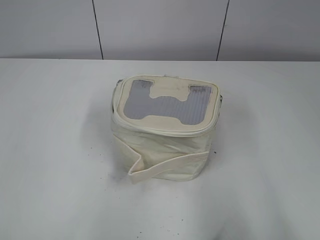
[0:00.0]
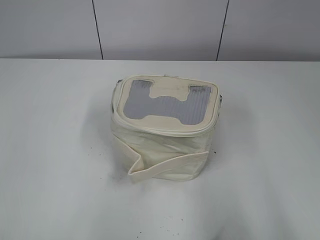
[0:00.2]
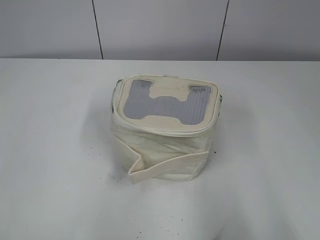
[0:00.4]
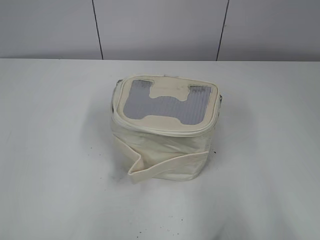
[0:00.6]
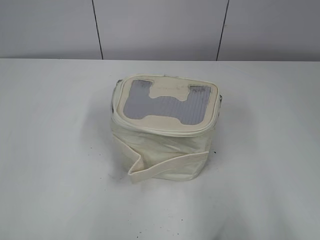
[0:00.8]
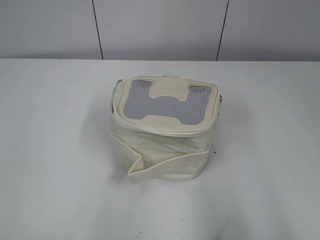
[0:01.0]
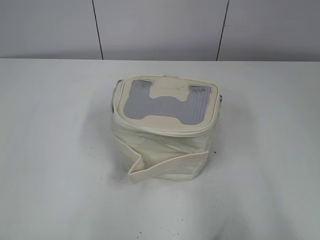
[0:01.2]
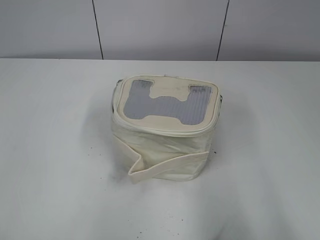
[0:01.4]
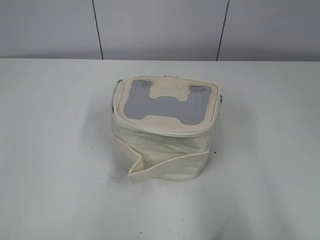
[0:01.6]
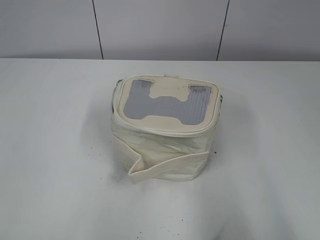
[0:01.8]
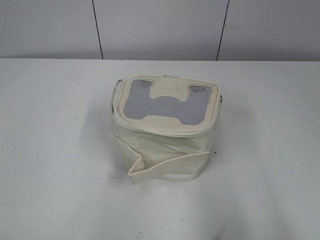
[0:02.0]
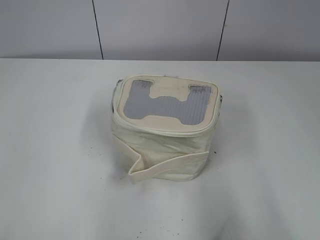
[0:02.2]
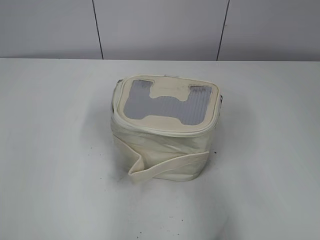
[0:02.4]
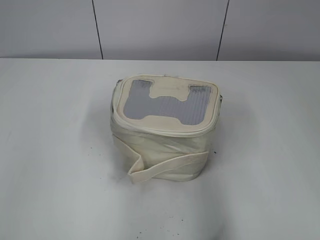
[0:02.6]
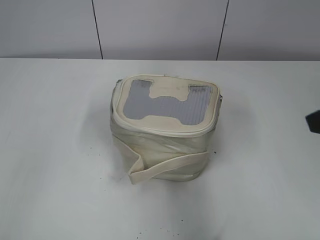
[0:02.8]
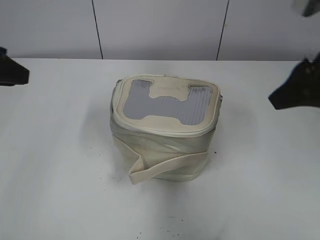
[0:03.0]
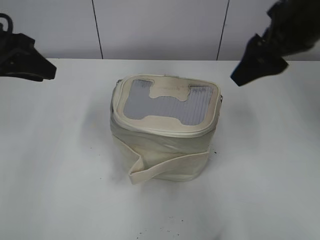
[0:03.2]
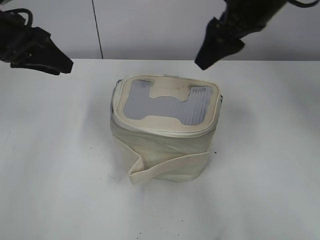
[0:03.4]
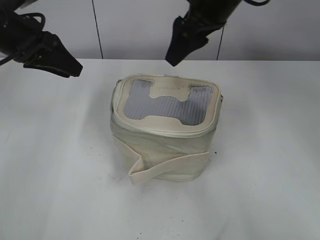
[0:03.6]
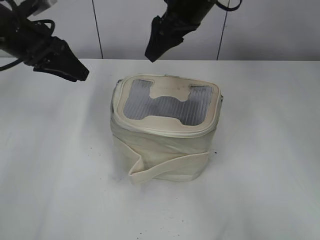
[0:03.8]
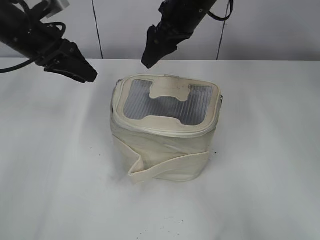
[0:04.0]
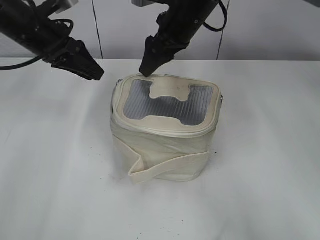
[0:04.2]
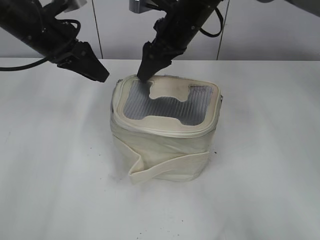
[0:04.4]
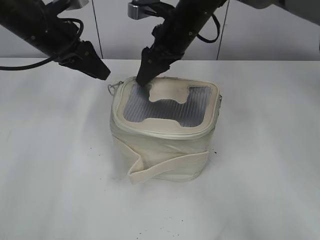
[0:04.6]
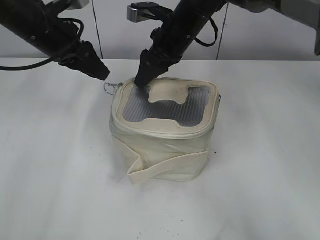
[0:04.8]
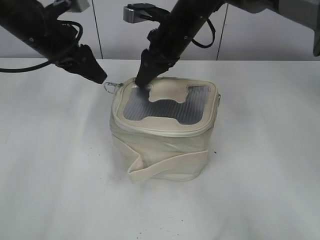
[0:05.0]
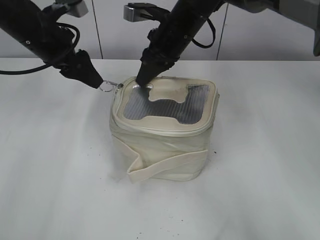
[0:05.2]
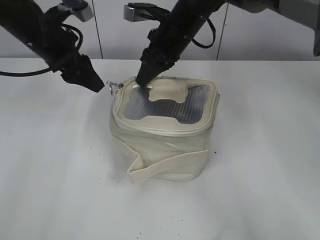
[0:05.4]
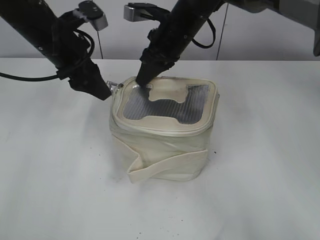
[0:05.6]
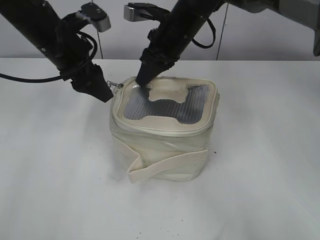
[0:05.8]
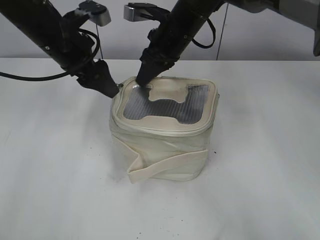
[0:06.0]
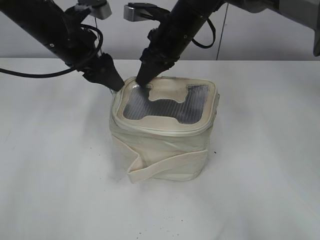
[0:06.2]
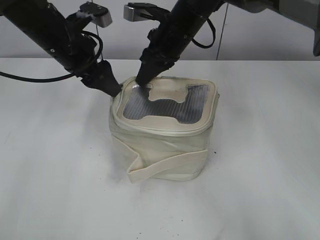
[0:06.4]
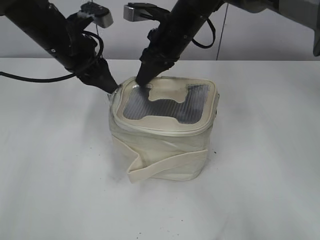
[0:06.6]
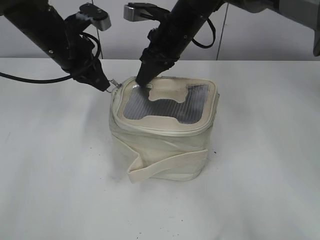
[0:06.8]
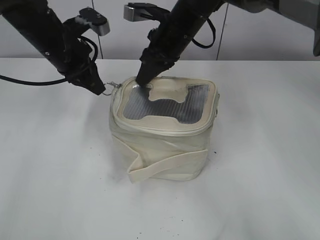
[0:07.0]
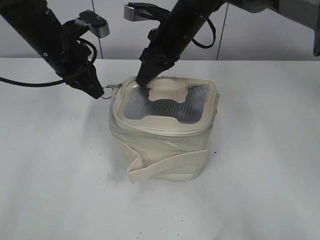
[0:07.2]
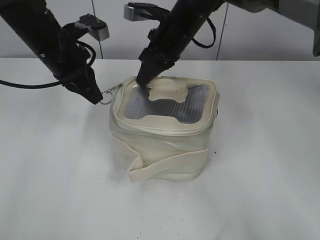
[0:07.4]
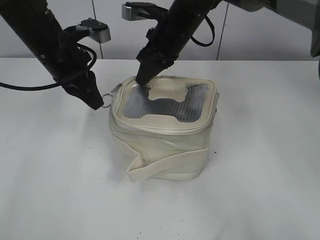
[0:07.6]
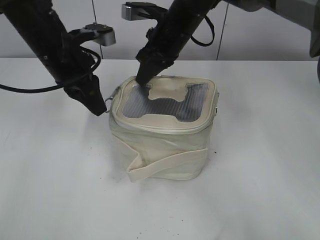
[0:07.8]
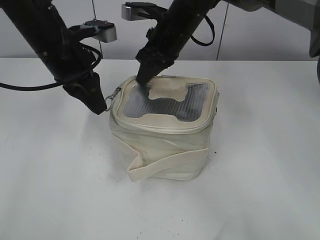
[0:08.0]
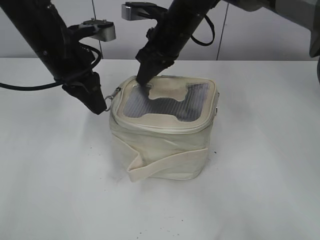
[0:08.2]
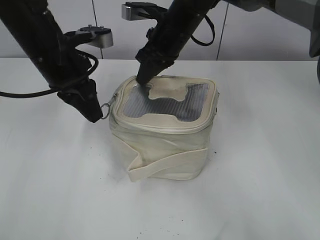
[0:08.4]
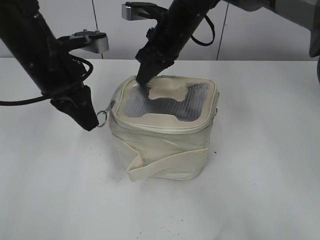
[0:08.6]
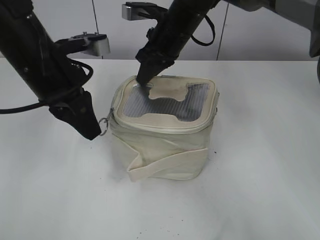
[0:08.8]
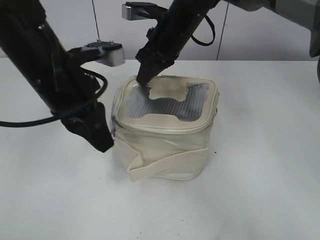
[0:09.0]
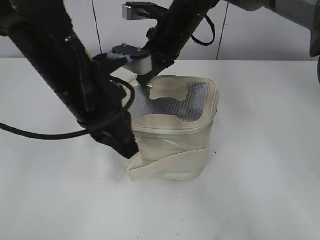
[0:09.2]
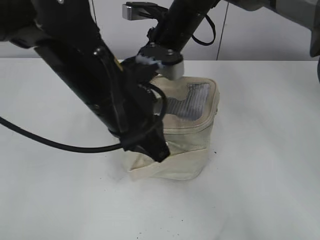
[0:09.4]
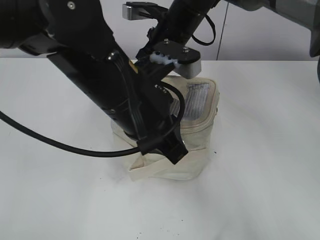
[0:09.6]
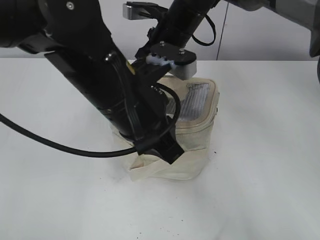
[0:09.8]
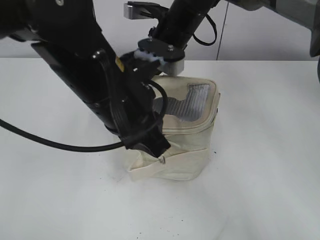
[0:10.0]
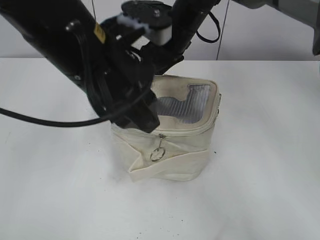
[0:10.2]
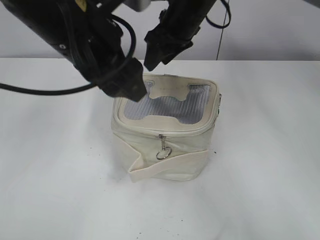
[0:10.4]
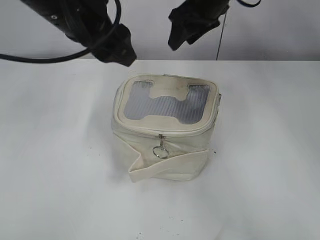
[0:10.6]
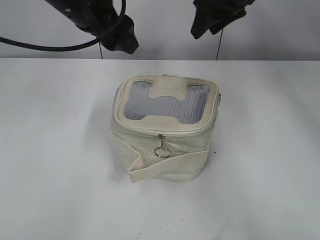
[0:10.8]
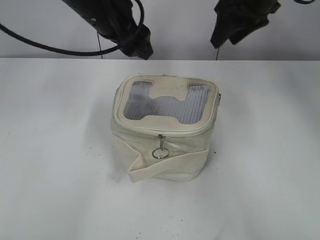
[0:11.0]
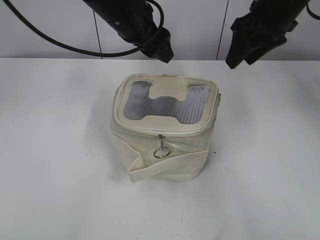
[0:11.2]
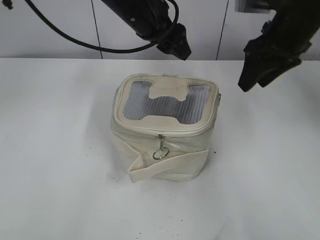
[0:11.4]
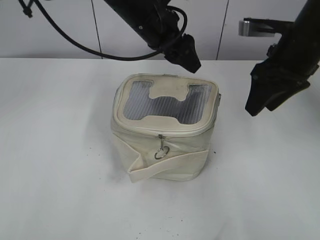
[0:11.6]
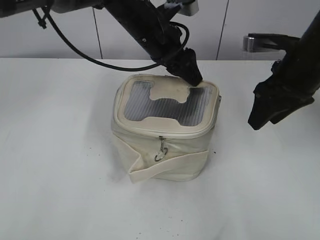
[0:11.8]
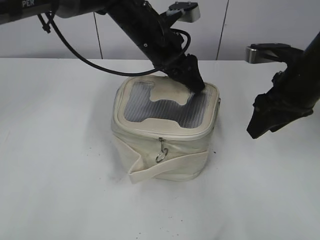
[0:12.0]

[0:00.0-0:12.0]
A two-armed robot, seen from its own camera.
Step, 0:00.0 to 0:10.0: Zip up the bag with your left hand.
0:01.6 to 0:03.0: Both grippers travel together forward, some 25 cm.
0:03.0 to 0:04.4: The left gripper heads forward and to the right, covering some 15 cm. The right gripper travels forward and to the left by roughly 25 cm.
0:04.4 to 0:06.0: The left gripper opens up, while the right gripper closes its fingers.
0:06.0 to 0:07.6: The left gripper closes up.
0:07.6 to 0:09.0: The left gripper moves backward, some 10 cm.
0:09.0 to 0:10.4: The right gripper opens its fingers. Meanwhile the left gripper is displaced upward by roughly 5 cm, and opens its fingers.
0:10.4 to 0:12.0: The right gripper moves to the right and backward, some 20 cm, while the left gripper moves forward, downward and to the right, some 20 cm.

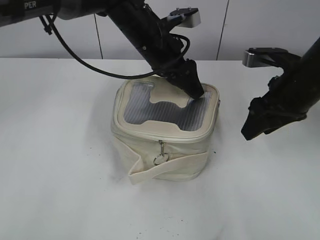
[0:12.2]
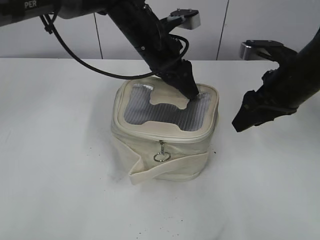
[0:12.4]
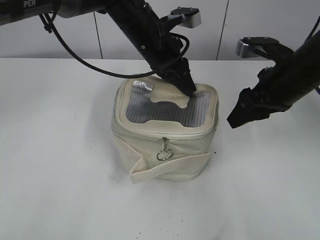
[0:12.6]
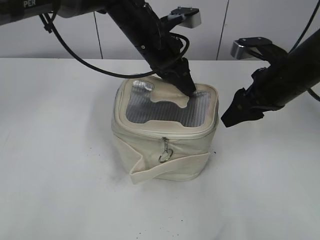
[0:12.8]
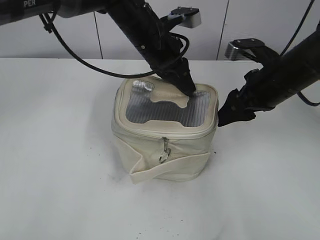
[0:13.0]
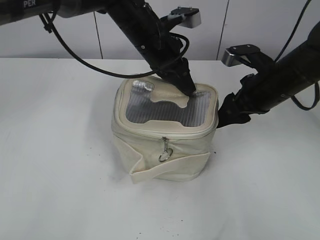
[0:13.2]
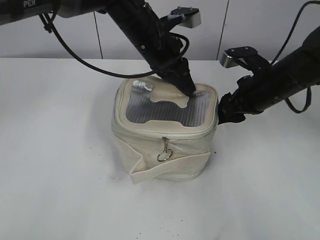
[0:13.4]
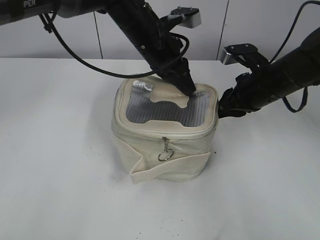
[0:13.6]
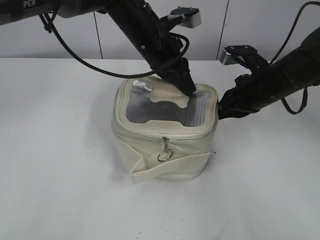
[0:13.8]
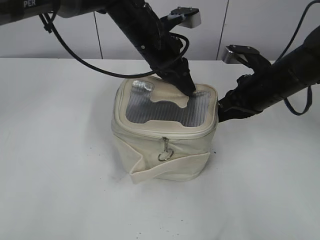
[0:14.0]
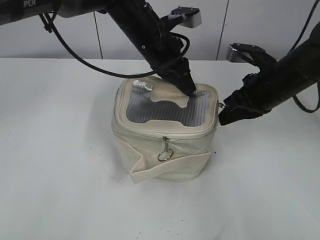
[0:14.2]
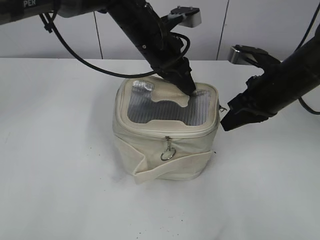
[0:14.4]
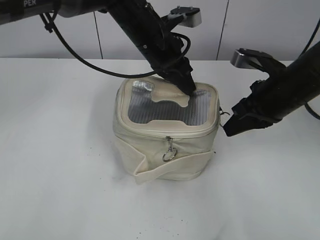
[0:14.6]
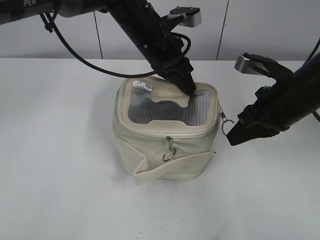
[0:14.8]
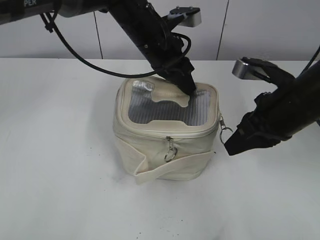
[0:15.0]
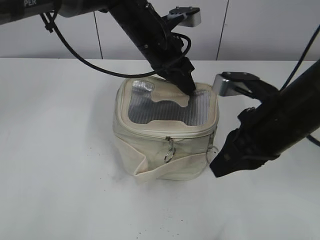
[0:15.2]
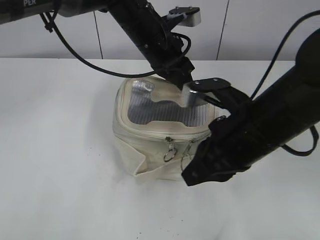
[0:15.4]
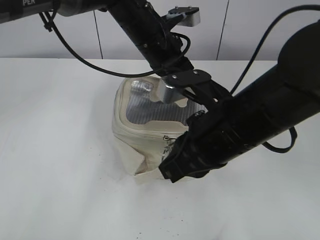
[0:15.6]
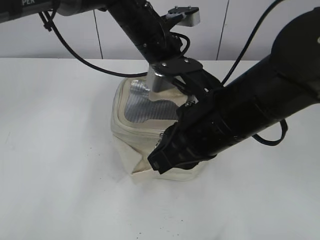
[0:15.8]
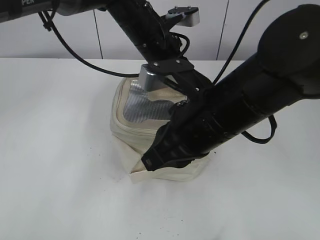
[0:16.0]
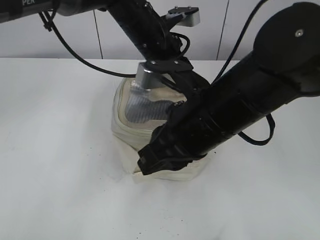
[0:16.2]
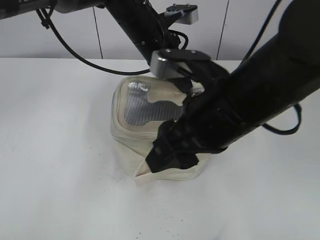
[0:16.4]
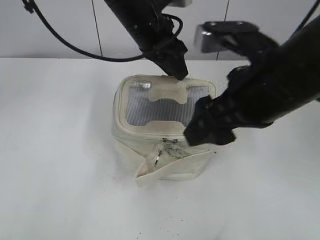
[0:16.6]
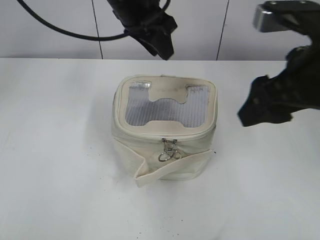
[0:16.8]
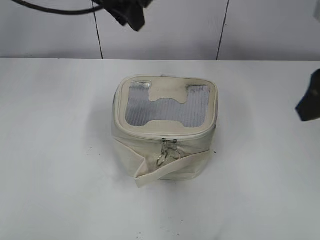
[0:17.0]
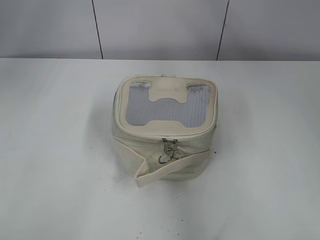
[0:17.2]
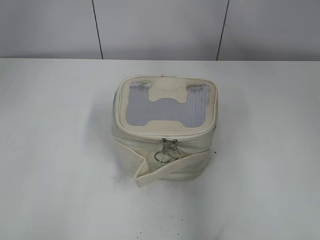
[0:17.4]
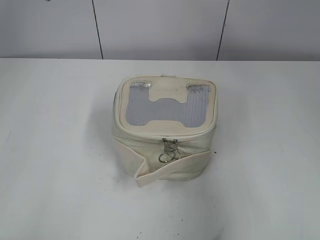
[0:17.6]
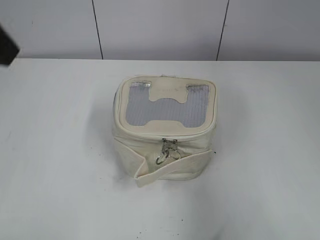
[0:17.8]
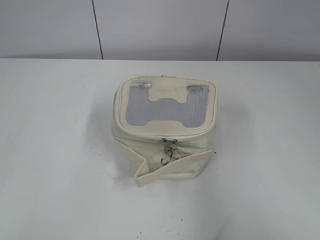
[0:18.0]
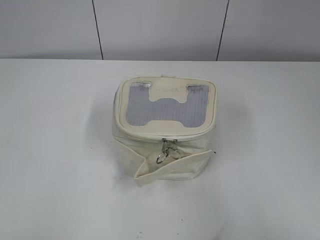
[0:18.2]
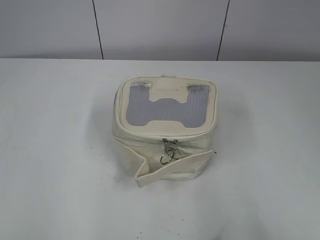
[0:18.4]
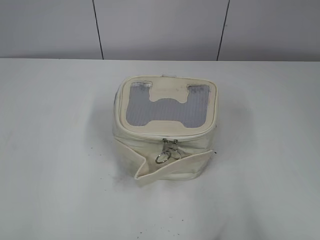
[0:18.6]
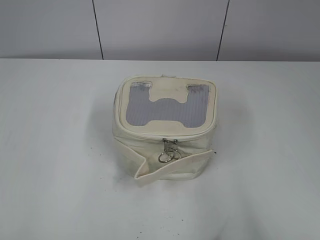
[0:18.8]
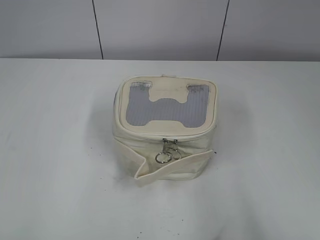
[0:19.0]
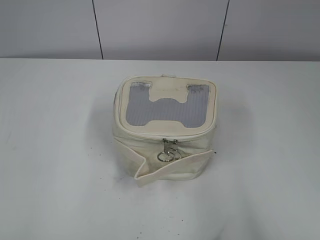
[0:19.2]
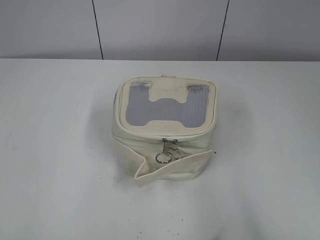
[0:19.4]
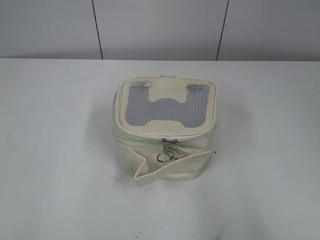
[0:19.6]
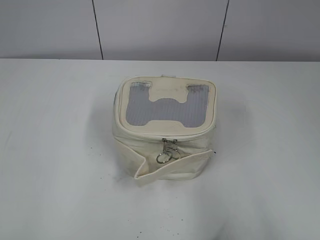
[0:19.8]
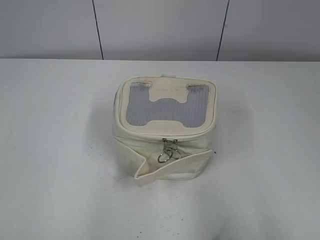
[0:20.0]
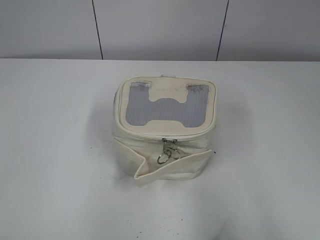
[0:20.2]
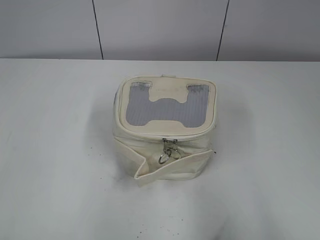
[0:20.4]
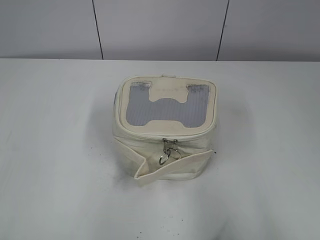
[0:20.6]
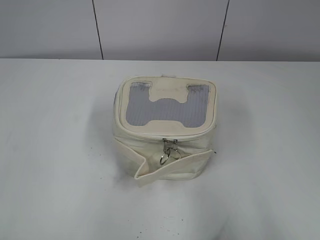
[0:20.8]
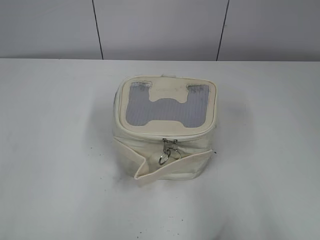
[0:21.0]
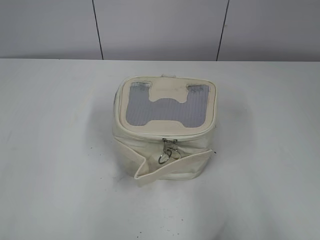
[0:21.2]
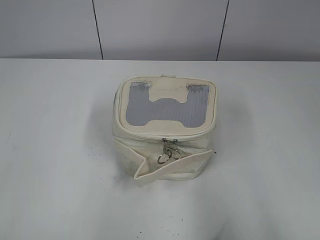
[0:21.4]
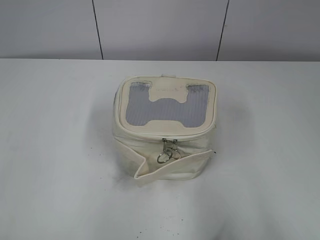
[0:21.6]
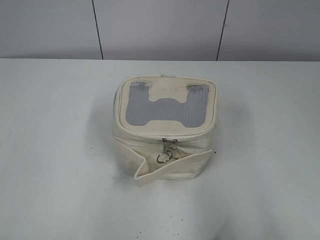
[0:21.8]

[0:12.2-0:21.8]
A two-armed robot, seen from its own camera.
Step, 0:12.2 to 0:16.0: Zip up the bag with your right hand.
0:12.2 to 0:13.8: The left gripper closes its fingers; the right gripper shifts by about 5 cm, and closes up.
0:13.8 to 0:15.4: The right gripper shifts roughly 15 cm backward and to the left.
0:15.4 to 0:17.0: The right gripper travels upward and to the right by roughly 15 cm, and opens up; the left gripper travels upward and to the left by about 15 cm, and opens.
0:17.0 to 0:18.6: The left gripper shifts approximately 50 cm backward and to the left; the right gripper goes some 25 cm backward.
0:20.2 to 0:21.8: Neither gripper changes place.
